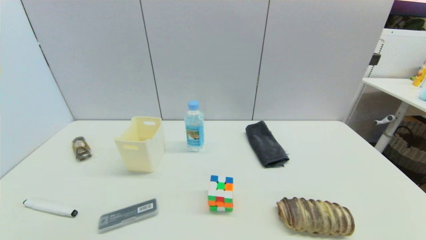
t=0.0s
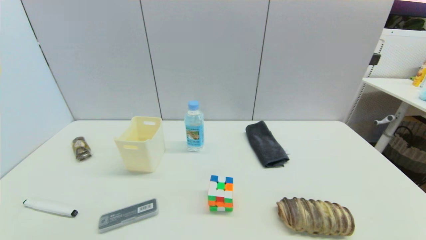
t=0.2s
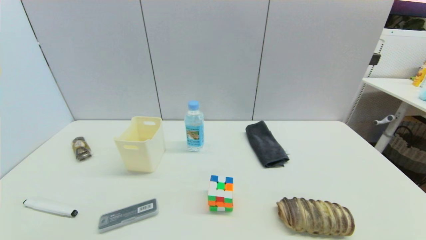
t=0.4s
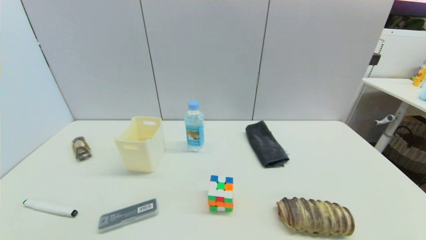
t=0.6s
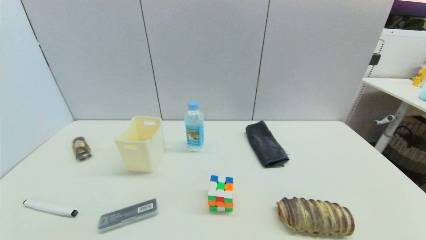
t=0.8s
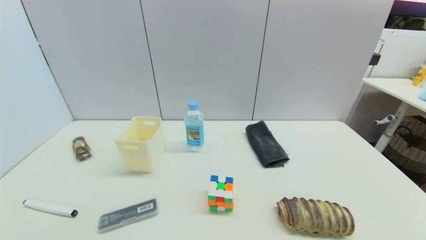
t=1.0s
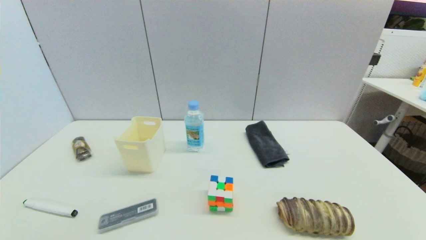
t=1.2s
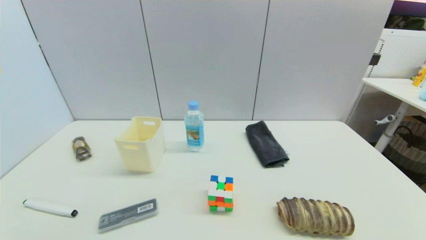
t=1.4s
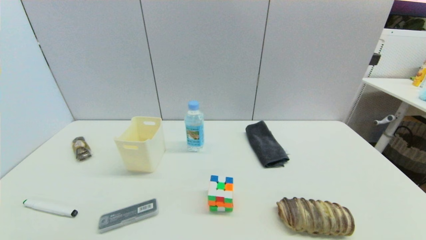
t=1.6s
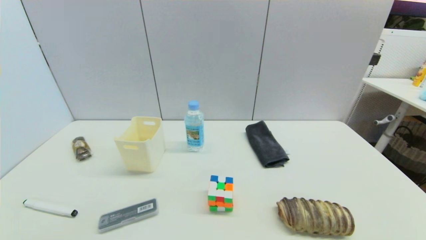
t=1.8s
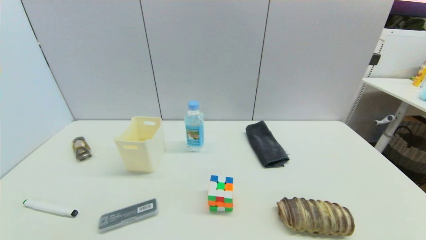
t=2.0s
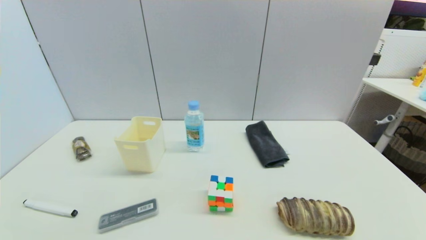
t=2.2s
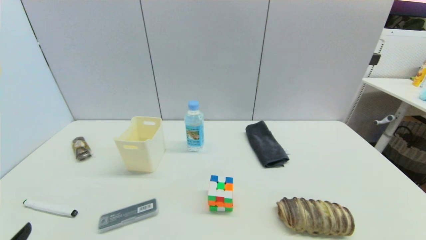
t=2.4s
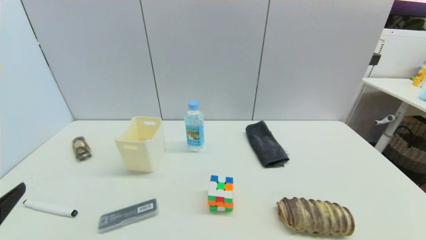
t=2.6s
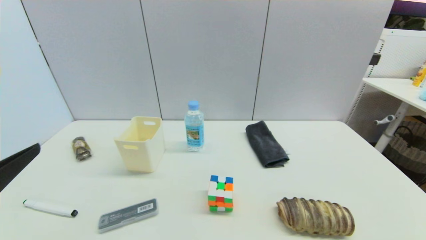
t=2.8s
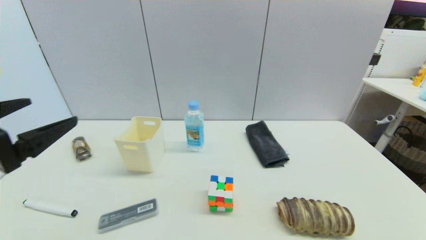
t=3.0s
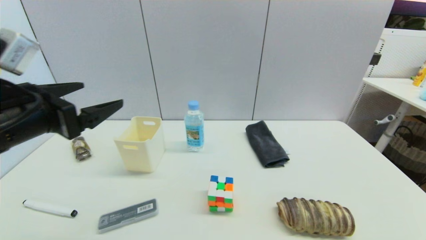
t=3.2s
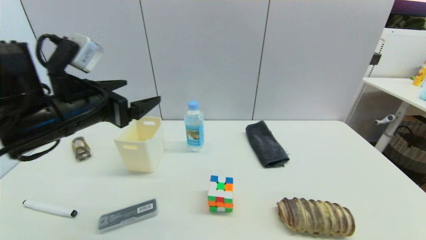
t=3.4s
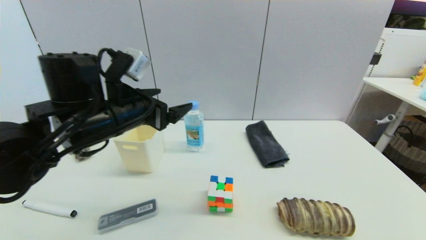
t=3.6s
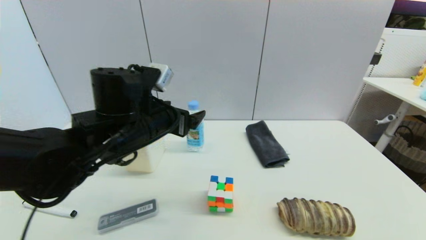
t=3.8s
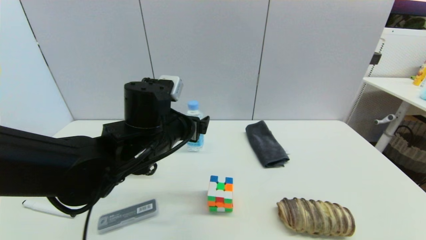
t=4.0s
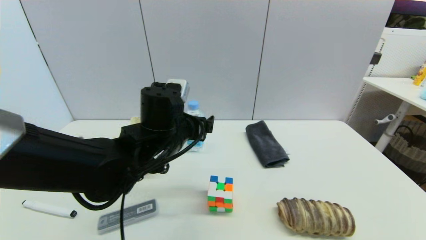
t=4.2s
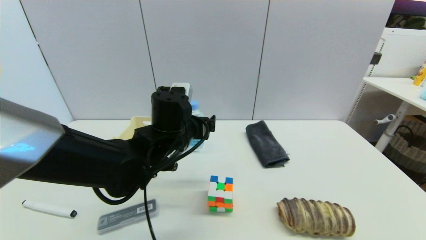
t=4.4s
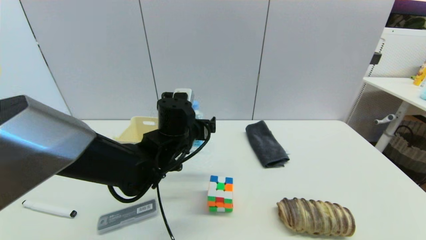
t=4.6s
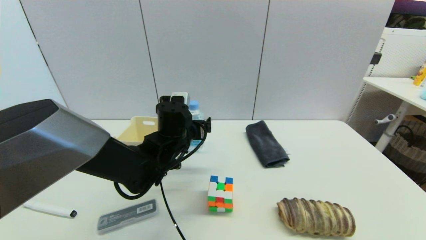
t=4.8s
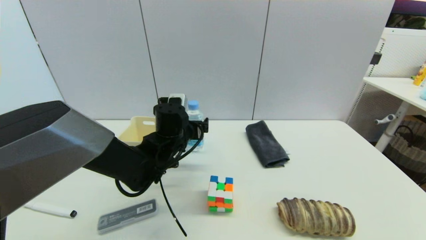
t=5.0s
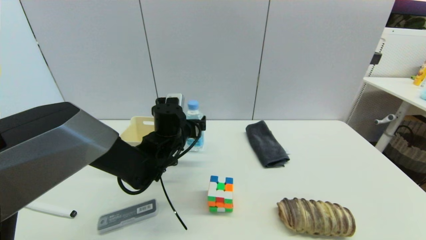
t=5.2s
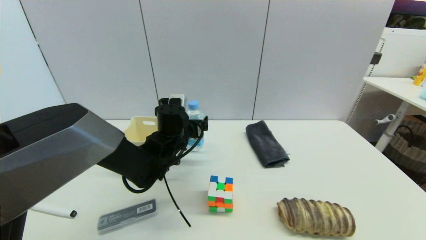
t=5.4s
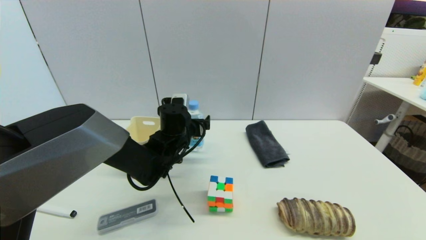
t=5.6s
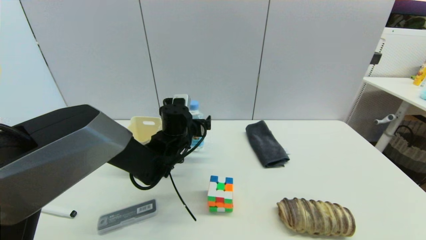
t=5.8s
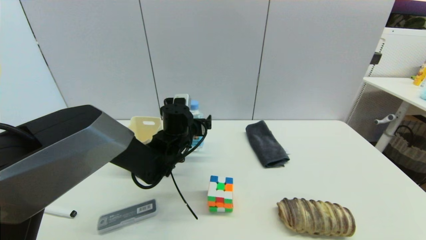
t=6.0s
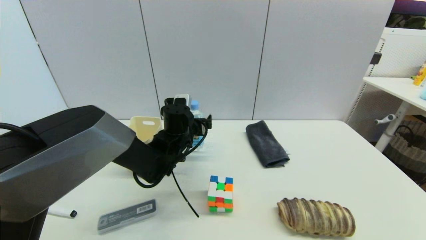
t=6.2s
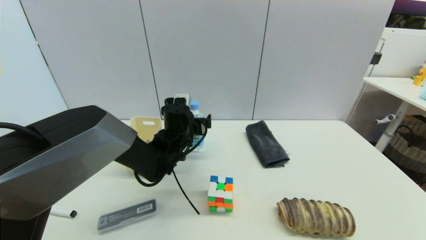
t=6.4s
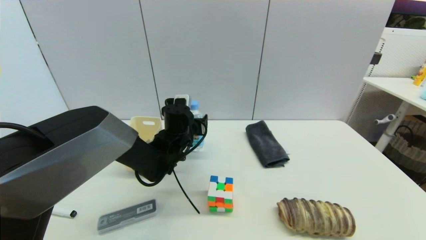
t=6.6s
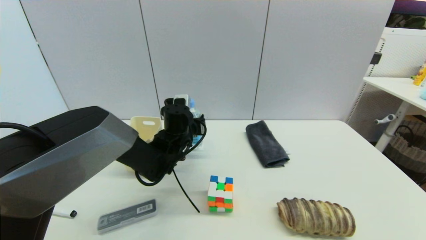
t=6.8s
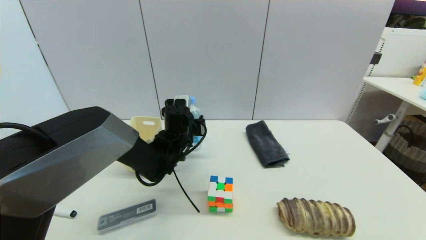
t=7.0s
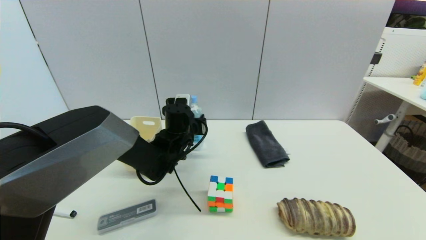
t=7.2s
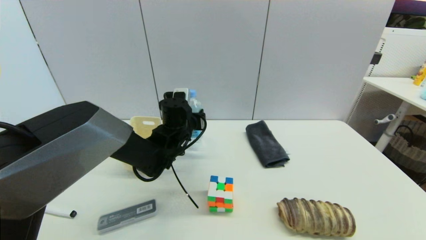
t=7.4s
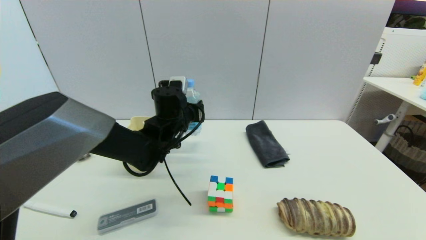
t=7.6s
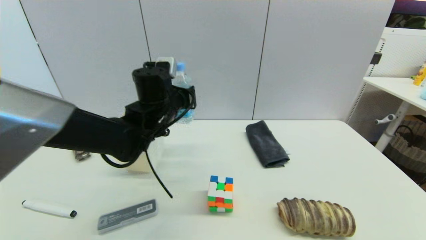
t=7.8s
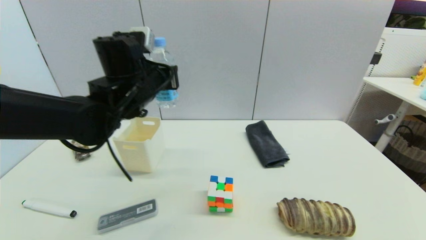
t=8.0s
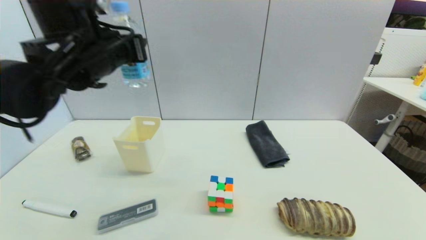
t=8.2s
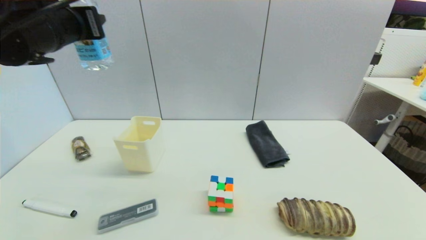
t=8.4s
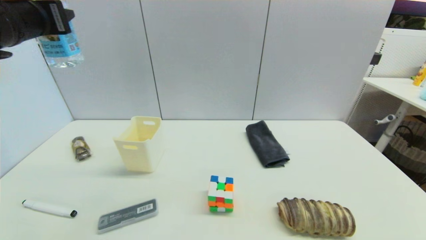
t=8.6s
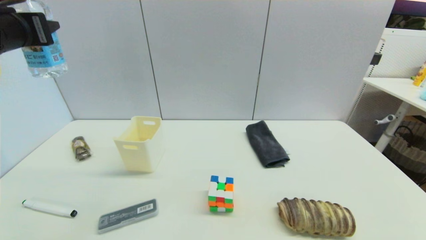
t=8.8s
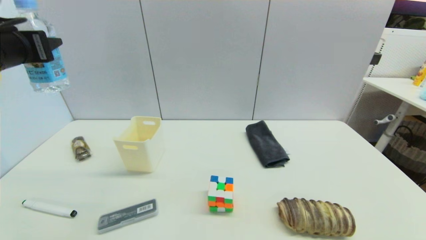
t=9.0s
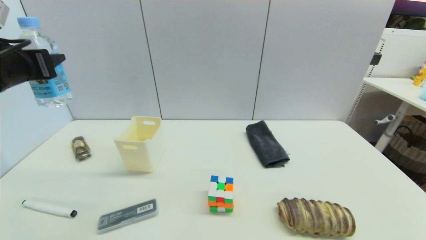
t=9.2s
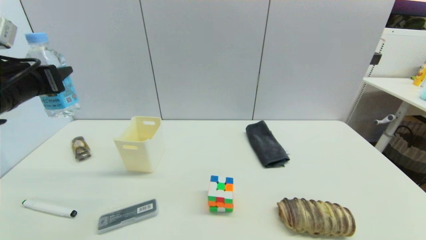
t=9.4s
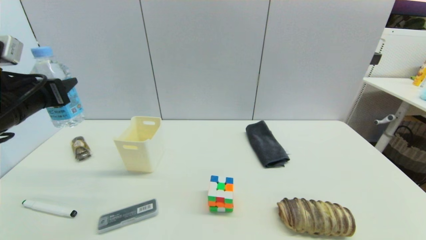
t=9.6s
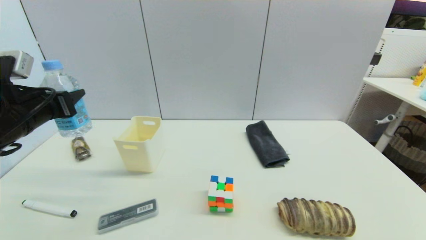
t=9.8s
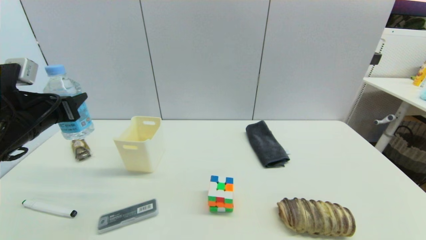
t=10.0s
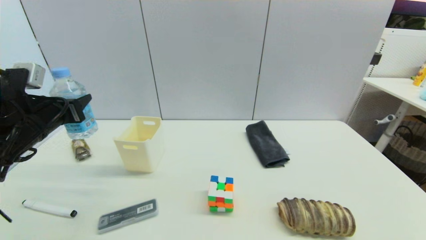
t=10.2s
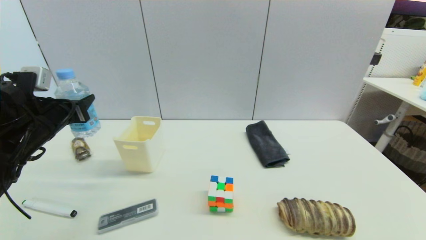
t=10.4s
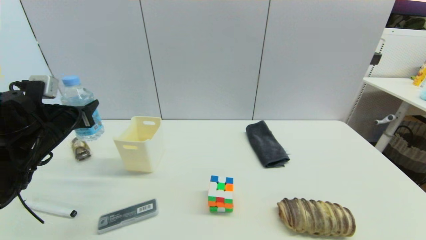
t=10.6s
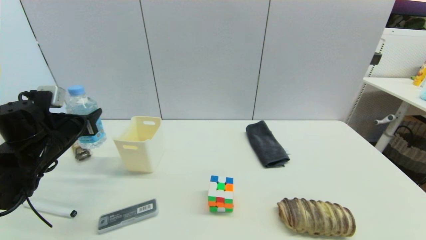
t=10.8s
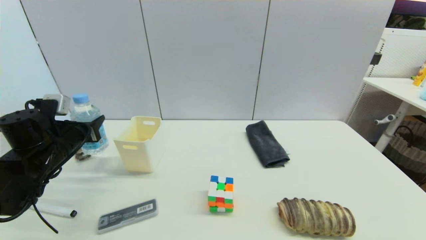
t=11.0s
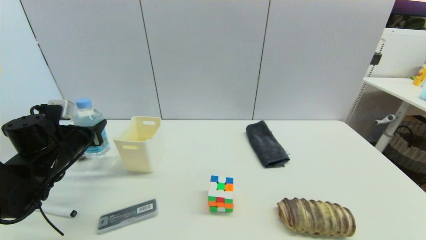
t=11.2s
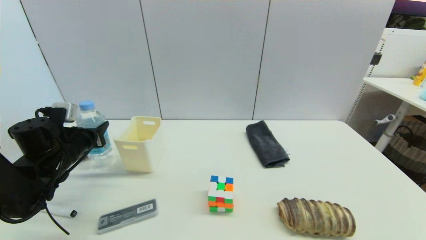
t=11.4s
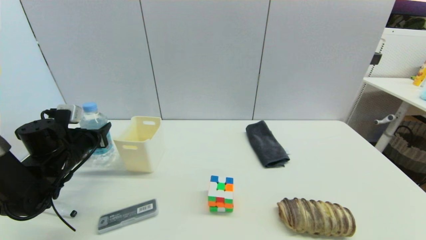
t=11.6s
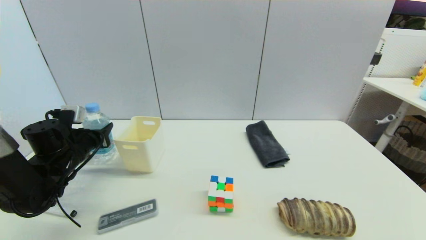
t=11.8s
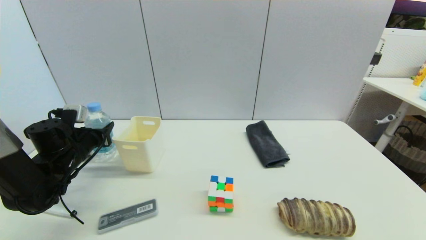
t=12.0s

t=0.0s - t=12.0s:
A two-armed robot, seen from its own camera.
Step, t=2.4s - t=7.2s: Grasp the soda water with left gripper.
t=1.6s - t=3.0s: The left gripper shifts approximately 25 cm upward and forward.
t=3.0s - t=4.4s: The left gripper shifts some 30 cm to the right, forward and downward.
t=4.4s - t=6.0s: The left gripper goes approximately 10 cm forward and downward.
t=6.0s - t=7.6s: The left gripper goes about 5 cm upward, and closes up.
t=7.6s - t=9.0s: The left gripper is displaced to the left, upward and backward by approximately 30 cm.
t=9.0s - t=10.4s: The left gripper travels downward by about 15 cm.
t=10.4s - t=12.0s: The left gripper shifts some 10 cm downward.

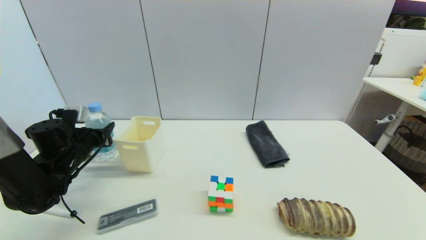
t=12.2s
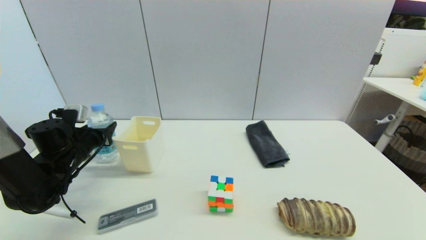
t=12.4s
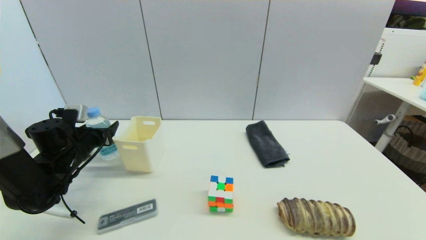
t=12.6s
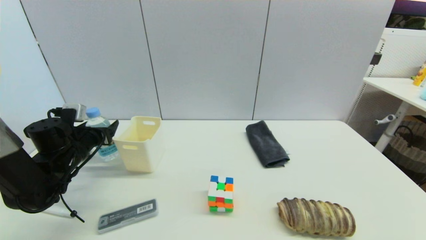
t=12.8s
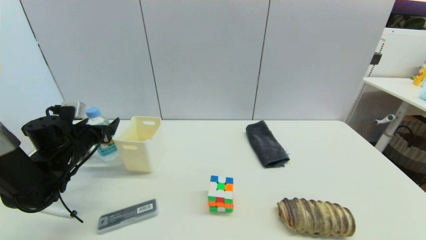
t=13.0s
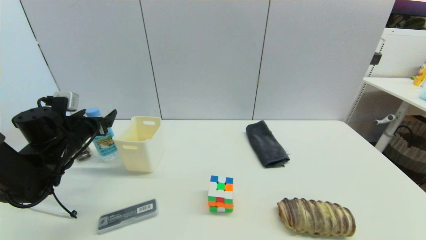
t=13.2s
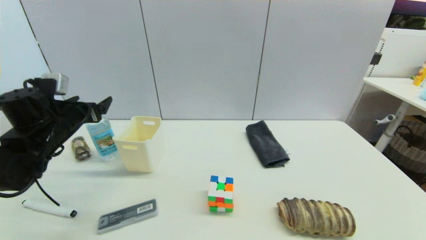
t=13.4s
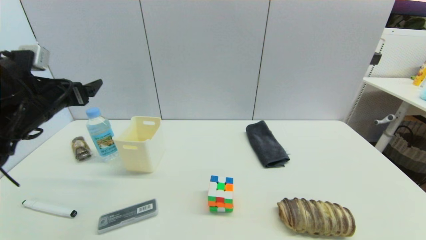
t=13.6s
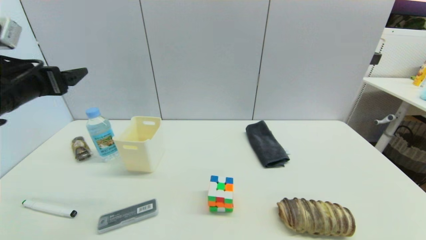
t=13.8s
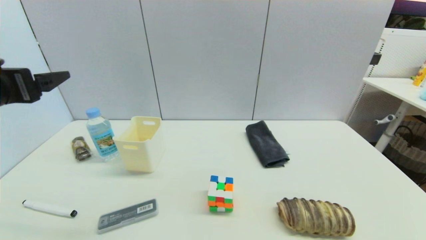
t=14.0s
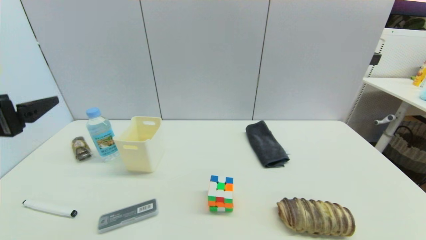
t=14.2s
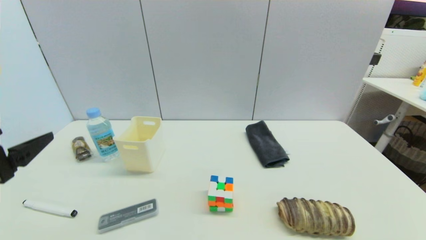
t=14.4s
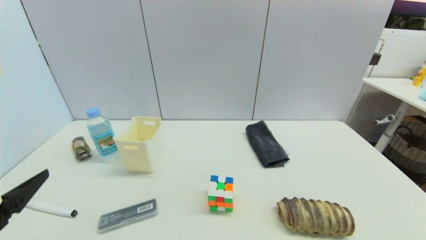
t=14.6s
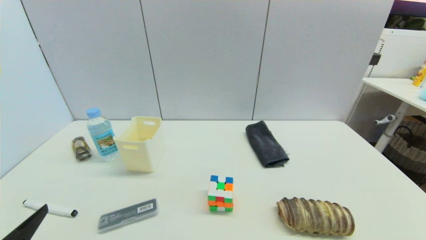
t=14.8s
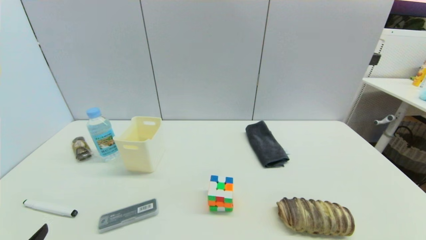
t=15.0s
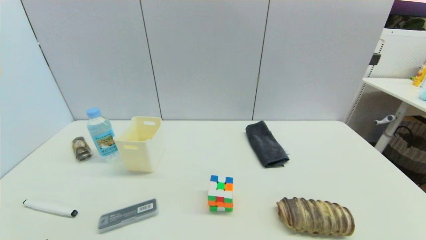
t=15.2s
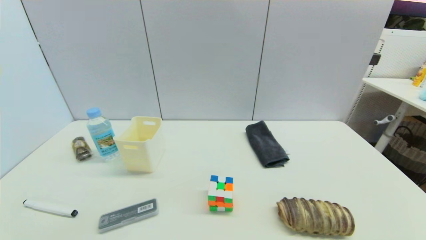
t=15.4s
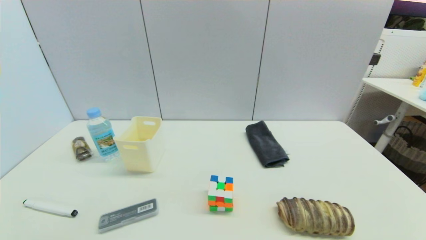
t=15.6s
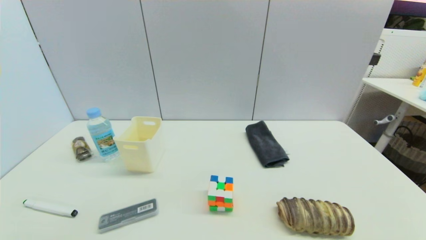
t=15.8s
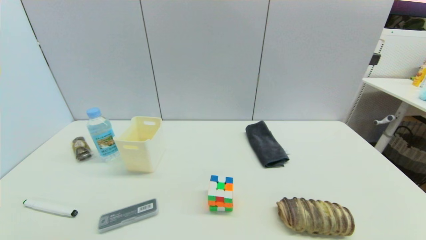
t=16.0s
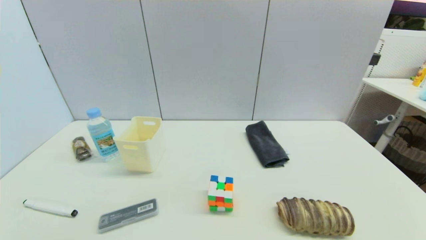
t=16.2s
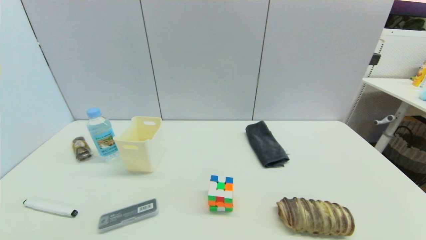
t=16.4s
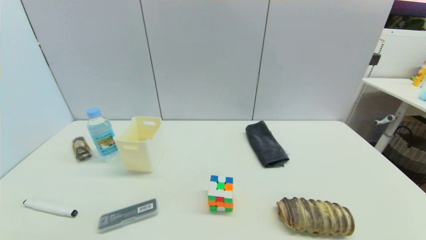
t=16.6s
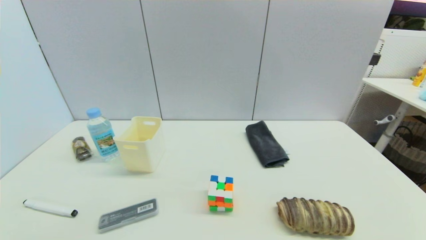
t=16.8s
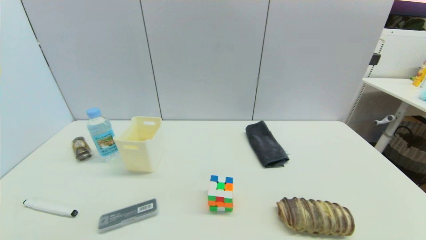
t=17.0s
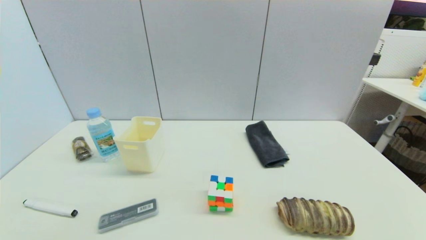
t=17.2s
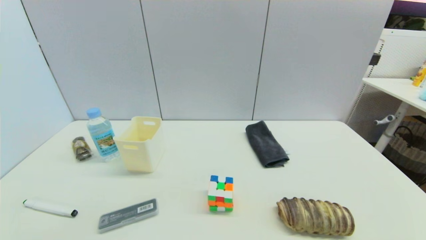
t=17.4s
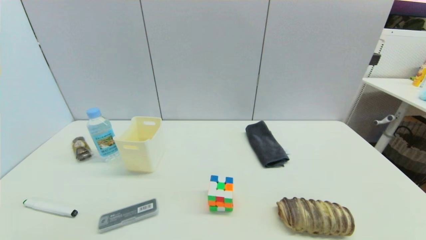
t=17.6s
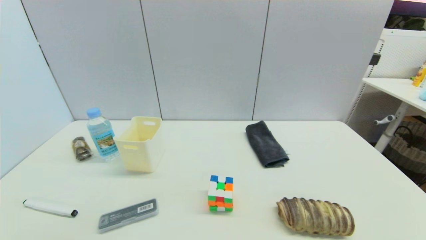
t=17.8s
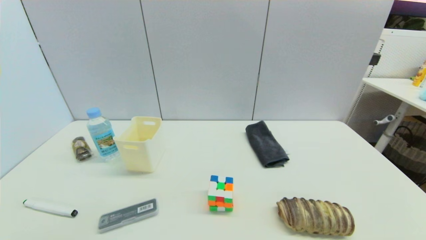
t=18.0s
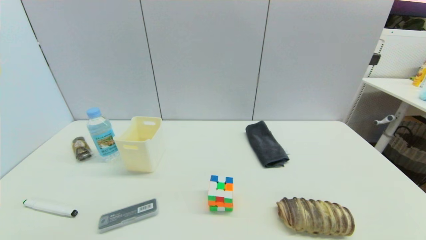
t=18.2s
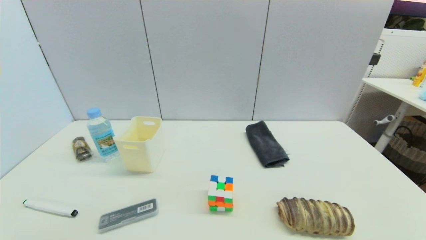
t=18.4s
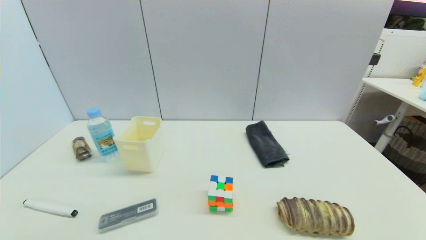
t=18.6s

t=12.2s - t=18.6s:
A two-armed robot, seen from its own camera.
t=12.2s - t=13.8s: The left gripper is displaced upward and backward by some 20 cm, and opens its fingers.
t=13.8s - t=15.4s: The left gripper shifts approximately 30 cm backward and downward.
t=17.0s - t=18.6s: Both grippers stay about where they are.
